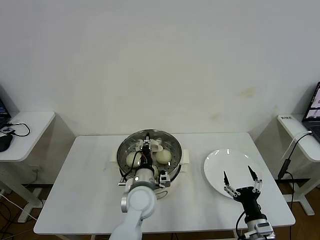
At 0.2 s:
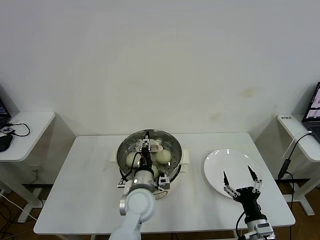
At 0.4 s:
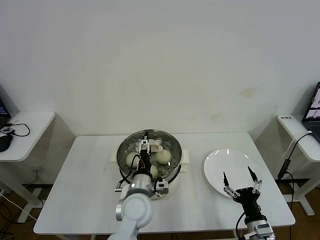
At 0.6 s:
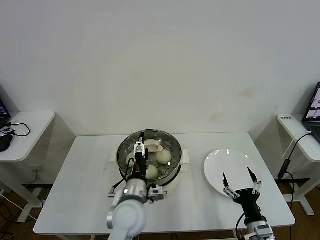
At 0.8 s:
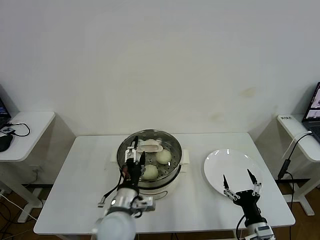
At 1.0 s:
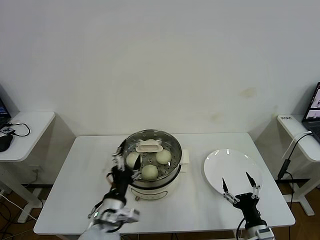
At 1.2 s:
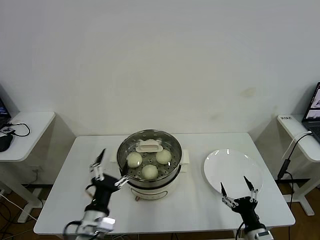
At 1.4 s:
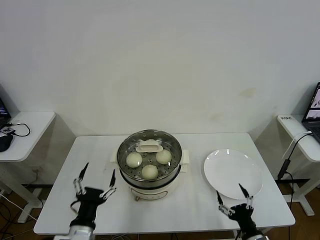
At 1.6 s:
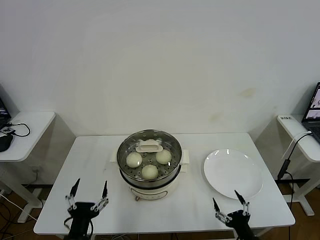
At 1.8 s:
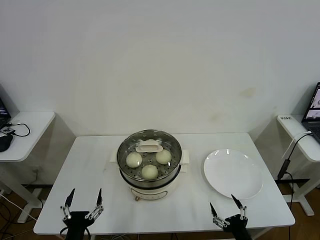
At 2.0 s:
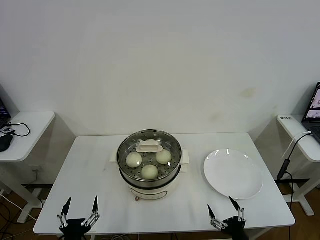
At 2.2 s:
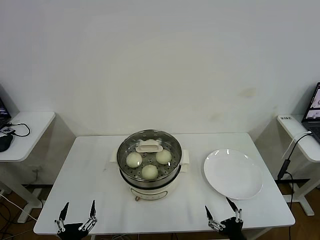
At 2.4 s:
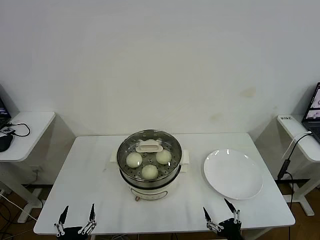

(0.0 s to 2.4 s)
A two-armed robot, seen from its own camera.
Task of the whole recording: take steamed baozi put them in steamer then cover it.
0.0 s - 1.2 s: The left gripper is displaced backward and to the left by approximately 20 cm, and opens up.
1.2 s - 2.4 s: The left gripper shifts some 20 cm backward, downward and to the left, while the right gripper is displaced backward by approximately 5 cm.
